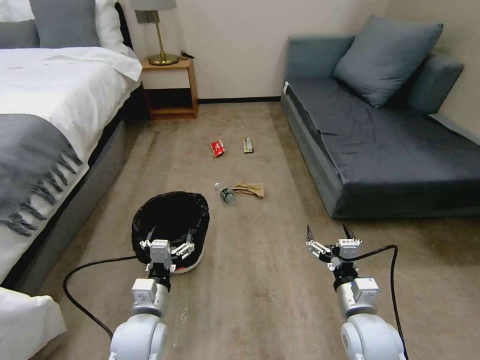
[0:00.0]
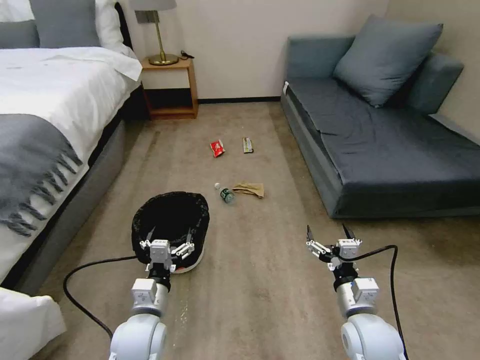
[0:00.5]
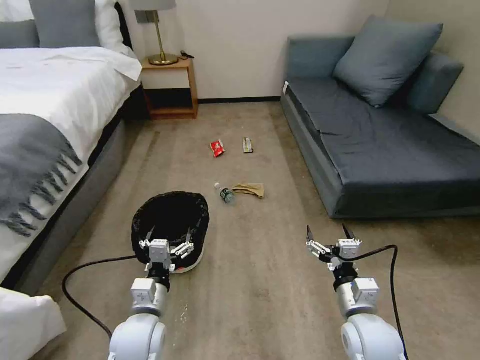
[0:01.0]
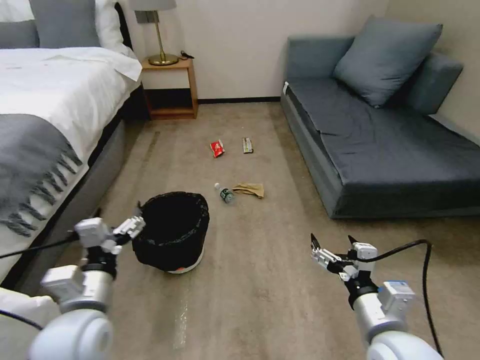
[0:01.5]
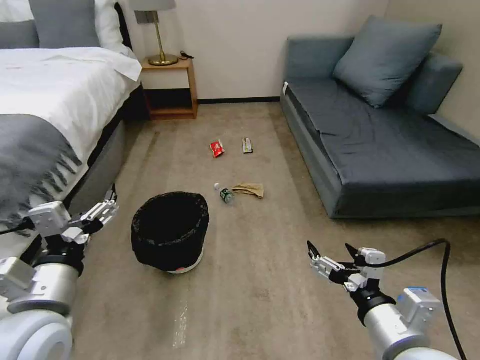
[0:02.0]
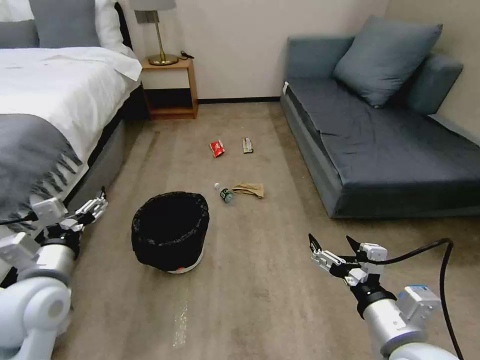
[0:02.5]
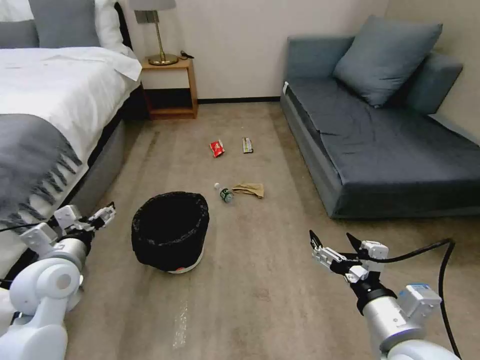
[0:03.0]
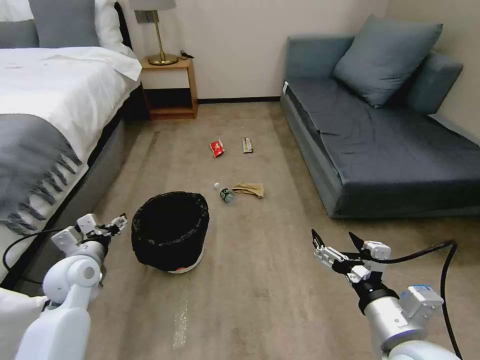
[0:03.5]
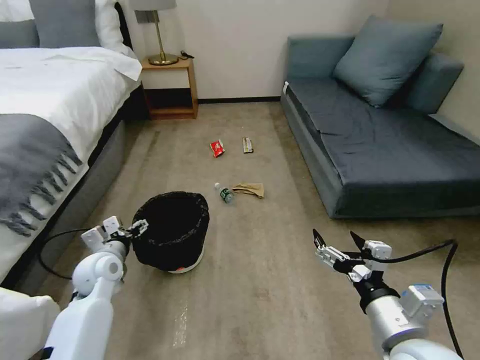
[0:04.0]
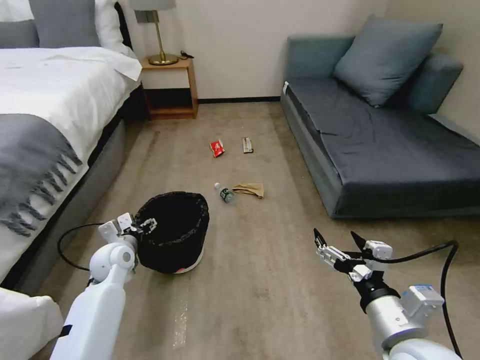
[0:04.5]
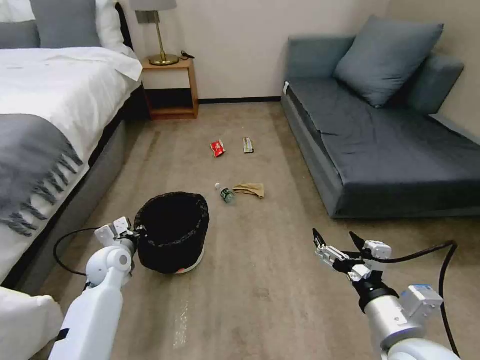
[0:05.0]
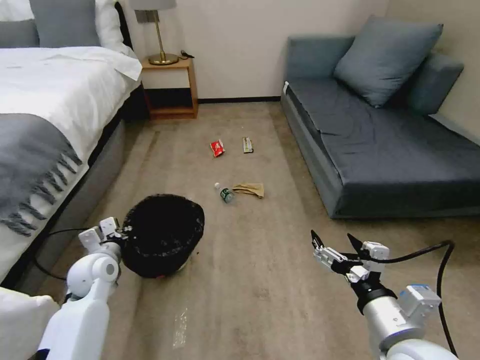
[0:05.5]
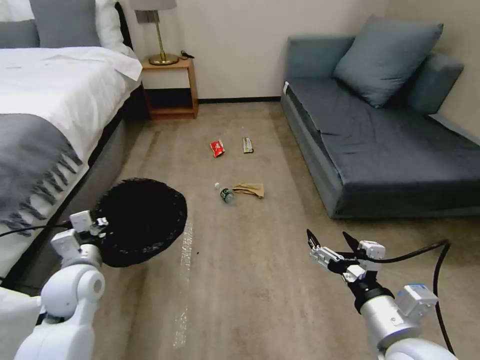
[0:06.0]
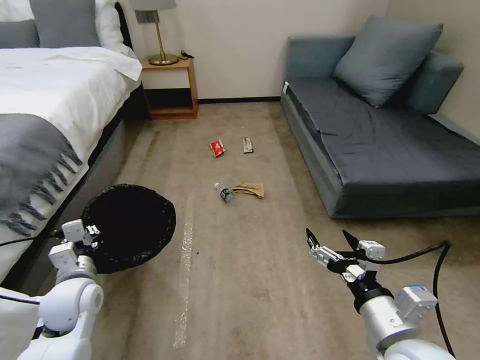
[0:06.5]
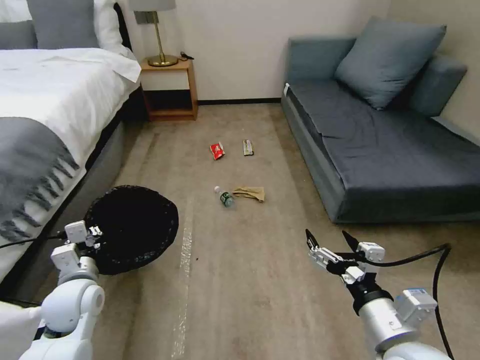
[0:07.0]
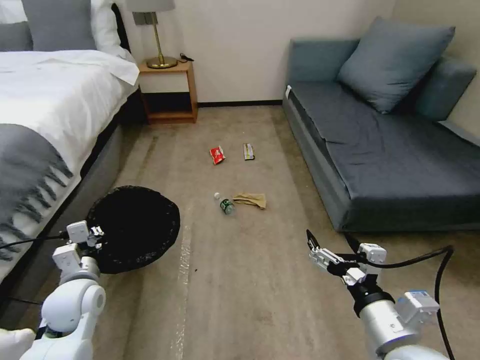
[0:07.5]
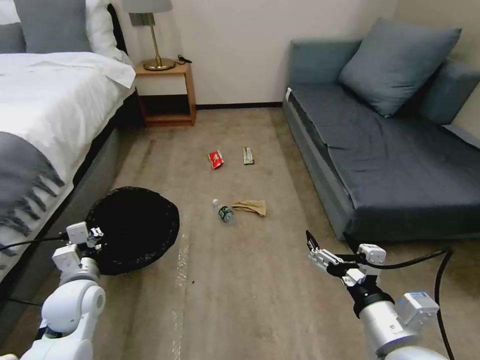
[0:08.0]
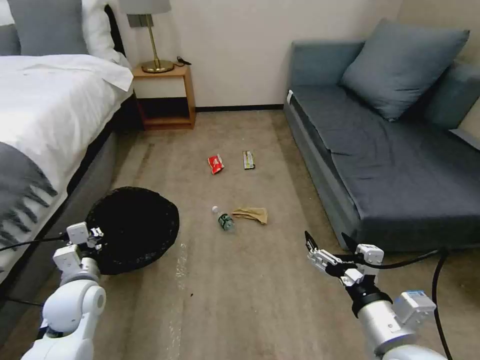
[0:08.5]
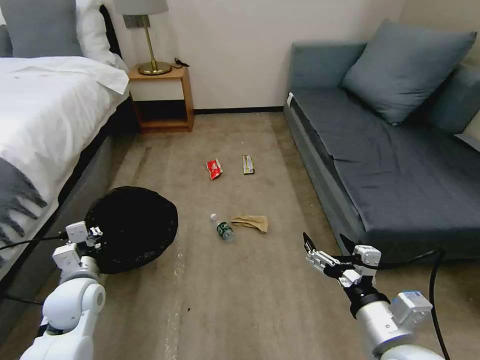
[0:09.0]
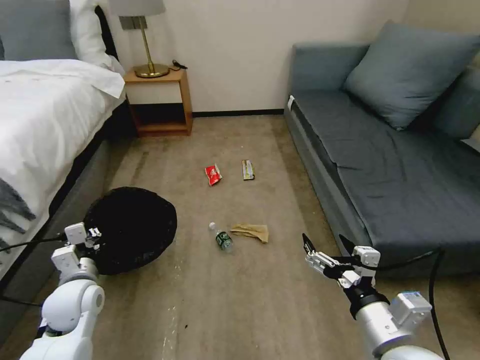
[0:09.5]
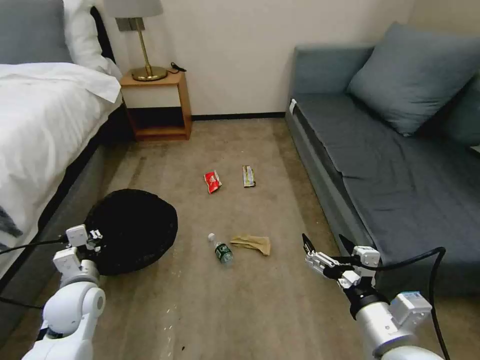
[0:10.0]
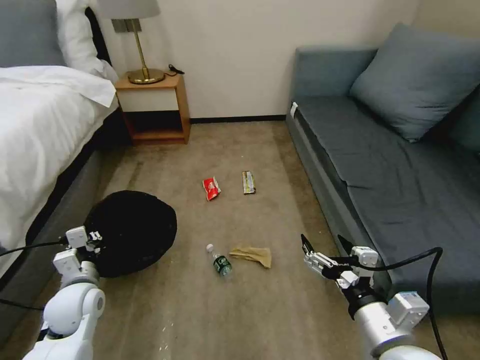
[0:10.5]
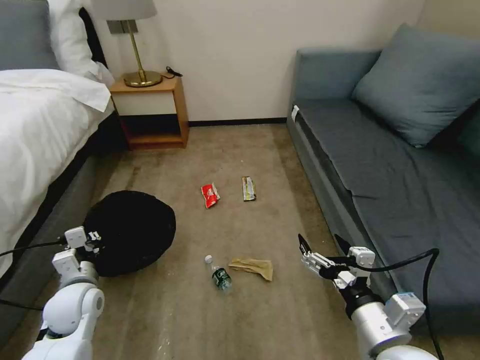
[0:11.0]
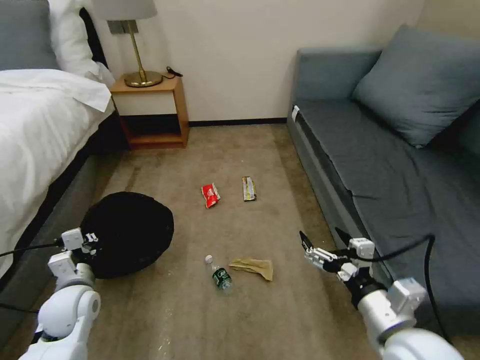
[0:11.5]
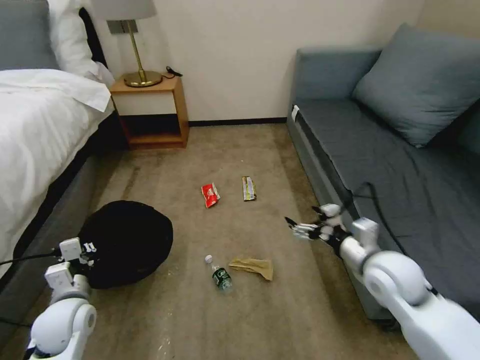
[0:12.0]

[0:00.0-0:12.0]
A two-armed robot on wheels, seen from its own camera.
Task of the whole recording: Pick up the trash bin, then pick up the garbage on the floor and place it into the trash bin.
0:02.0 to 0:04.0: The left gripper moves forward and downward, approximately 25 cm.
0:04.0 to 0:06.0: The left gripper heads backward and upward, covering about 10 cm, and closes its fingers.
0:10.0 to 0:12.0: The right gripper is displaced forward by about 15 cm.

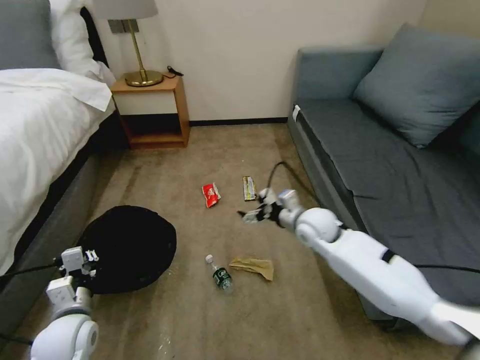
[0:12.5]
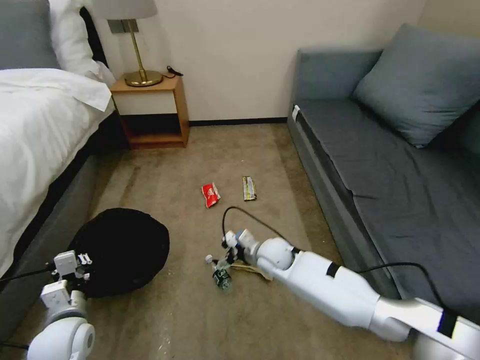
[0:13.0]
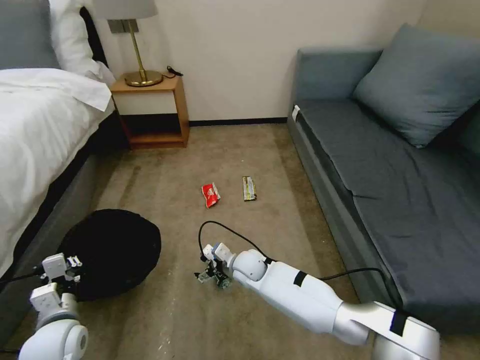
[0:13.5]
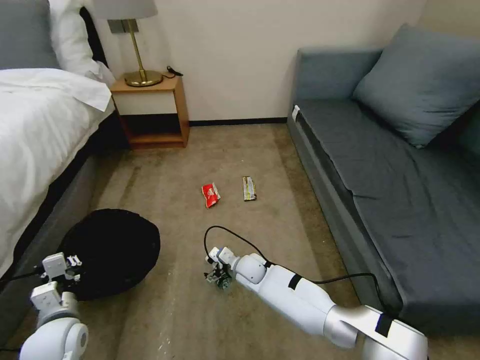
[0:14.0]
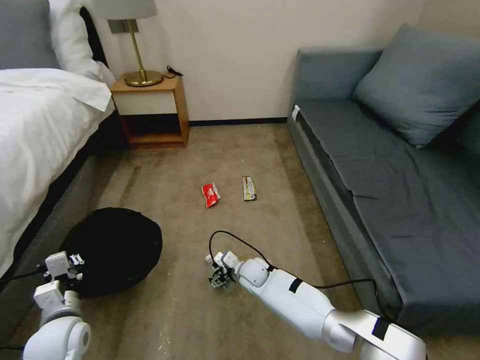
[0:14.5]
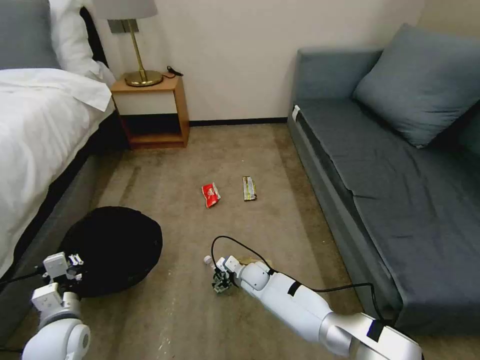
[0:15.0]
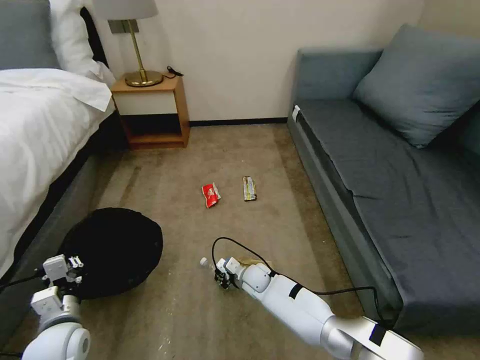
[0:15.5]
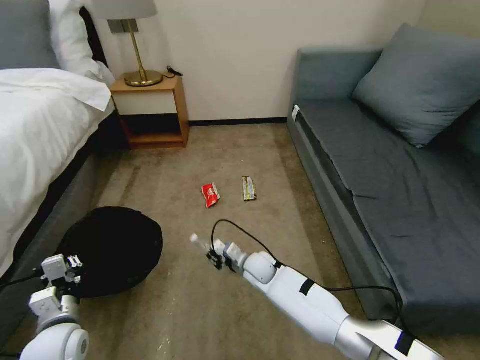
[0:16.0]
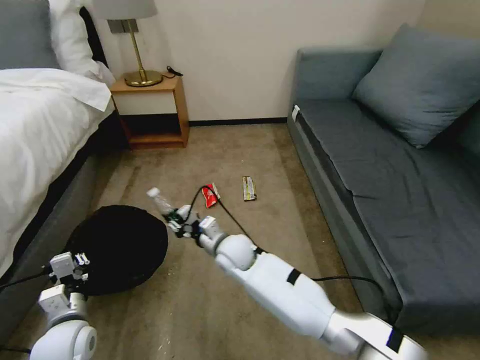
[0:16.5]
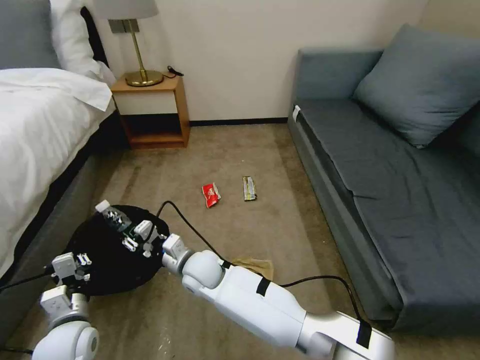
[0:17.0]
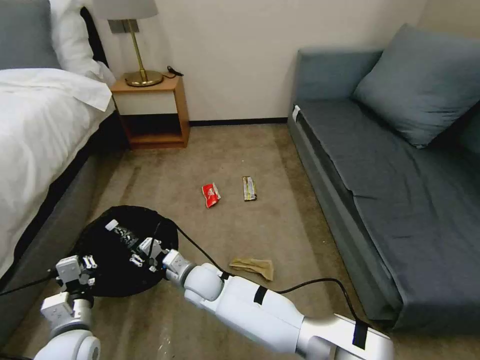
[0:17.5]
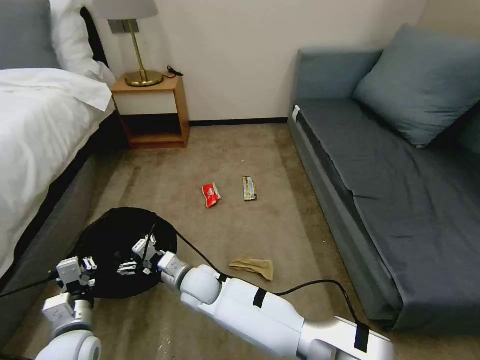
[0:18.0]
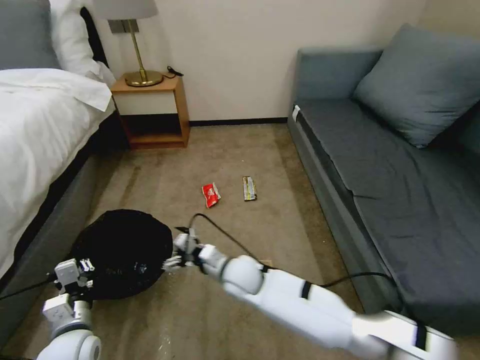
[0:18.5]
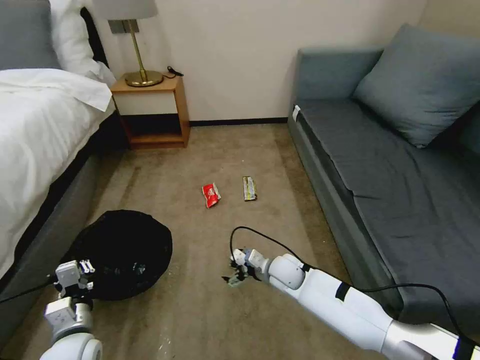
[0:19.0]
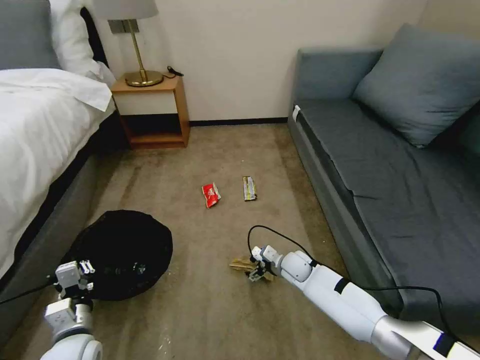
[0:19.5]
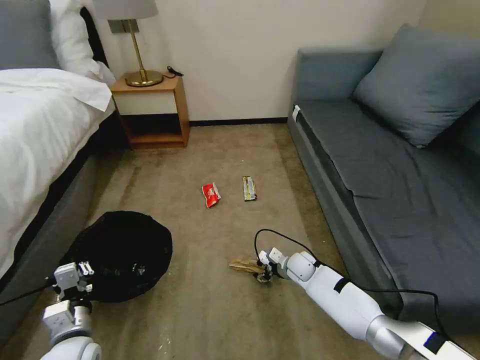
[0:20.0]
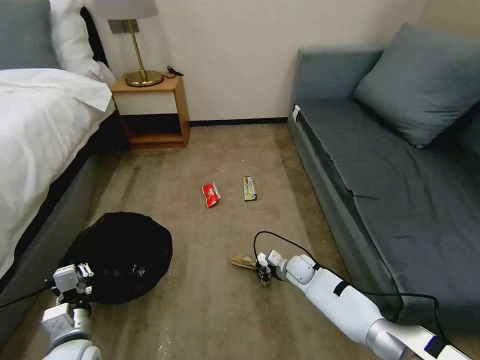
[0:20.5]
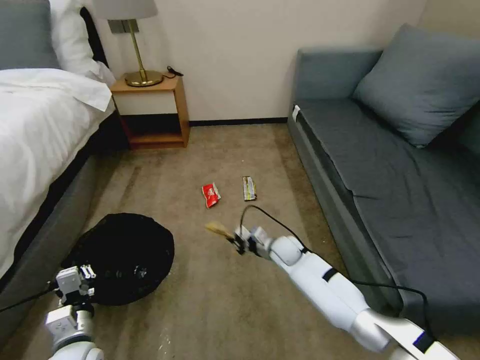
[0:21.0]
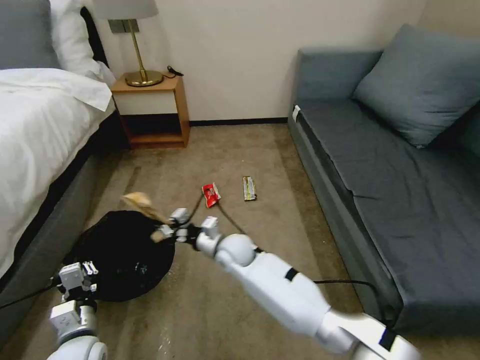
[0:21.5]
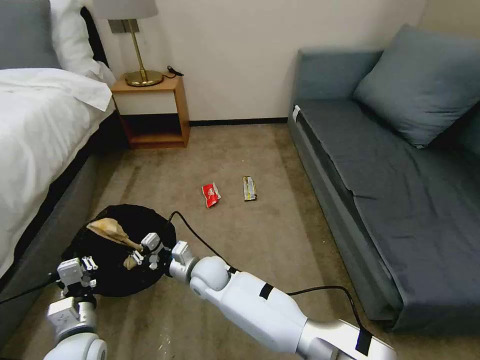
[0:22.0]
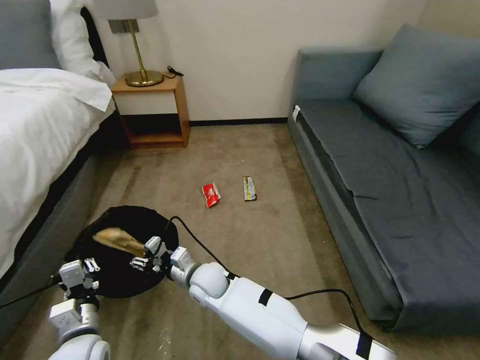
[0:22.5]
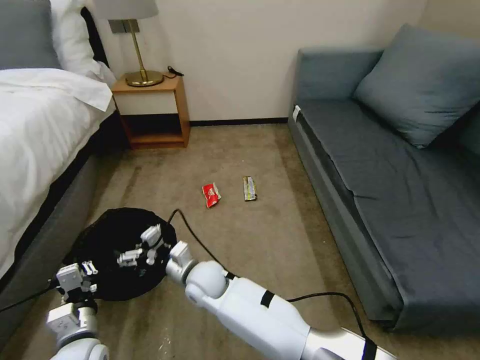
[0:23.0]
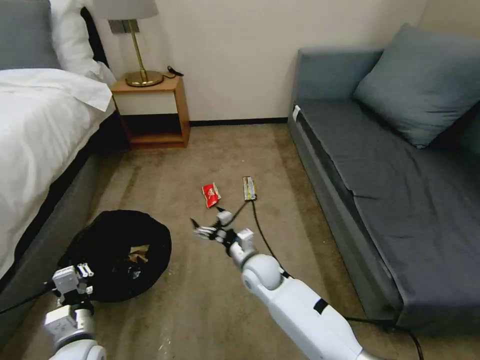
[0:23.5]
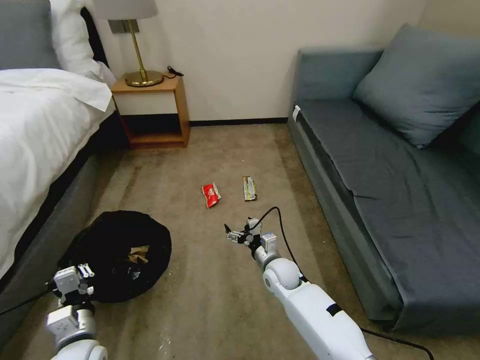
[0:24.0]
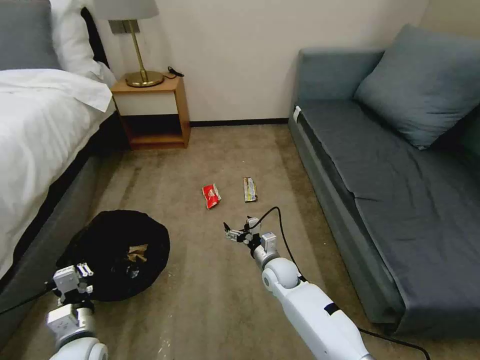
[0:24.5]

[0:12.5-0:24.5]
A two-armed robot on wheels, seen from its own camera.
Task of the whole recording: Pick up the trash bin, then pick up the garbage on the floor and place it into the trash bin.
0:12.5 to 0:14.5: The right gripper goes some 25 cm downward and to the left.
0:14.5 to 0:16.5: The right gripper goes approximately 15 cm upward, and closes its fingers.
0:16.5 to 0:18.5: The right gripper goes roughly 5 cm backward, travels to the left and back again, roughly 10 cm each way, and opens its fingers.
0:18.5 to 0:20.5: The right gripper is displaced to the right and downward by some 25 cm, and closes its fingers.
0:20.5 to 0:22.5: The right gripper shifts some 30 cm to the left, and opens.
0:22.5 to 0:24.5: The right gripper goes some 20 cm to the right, and opens its fingers.

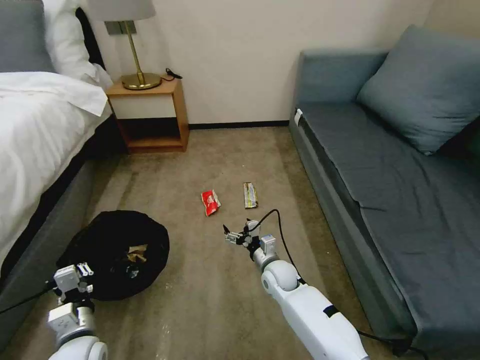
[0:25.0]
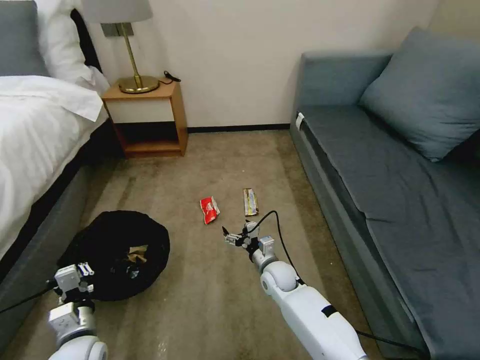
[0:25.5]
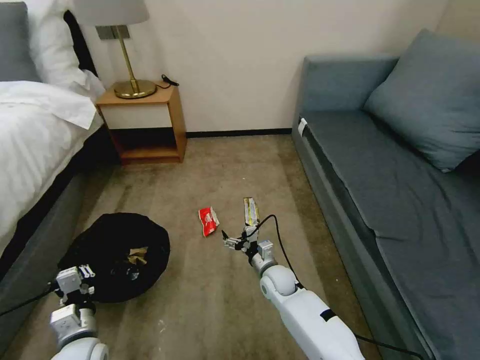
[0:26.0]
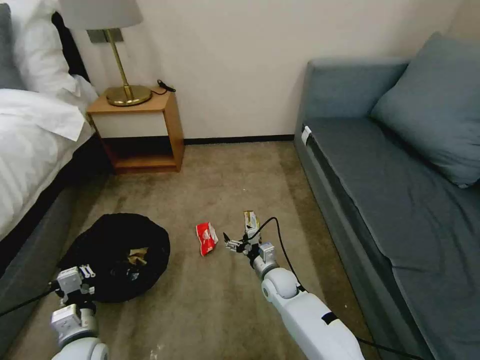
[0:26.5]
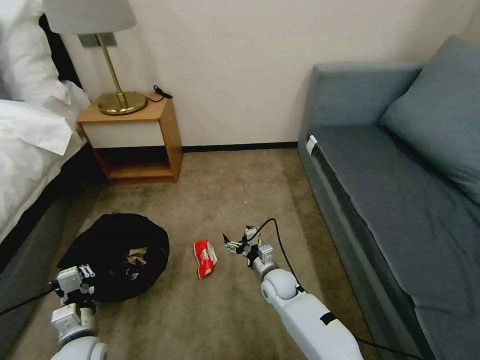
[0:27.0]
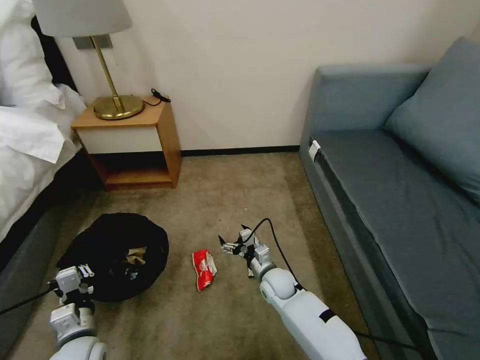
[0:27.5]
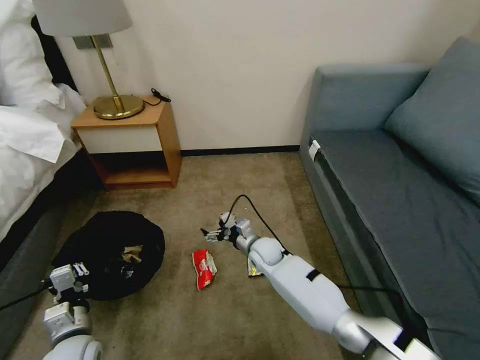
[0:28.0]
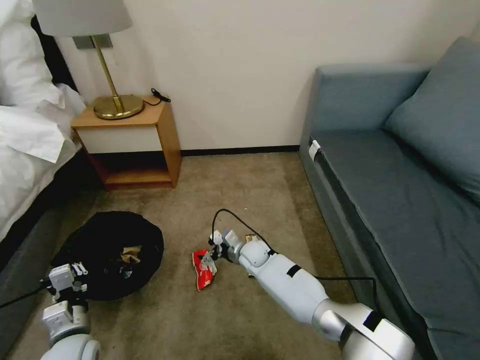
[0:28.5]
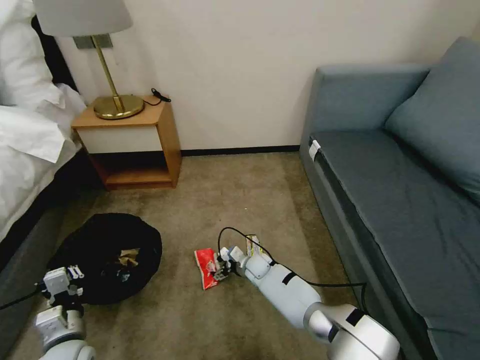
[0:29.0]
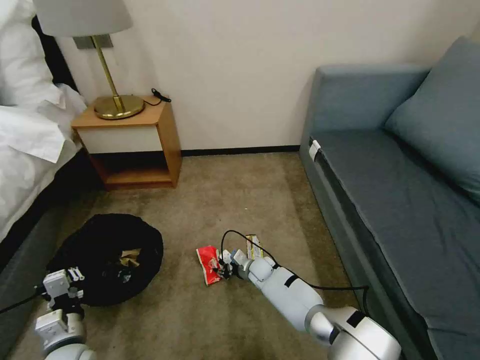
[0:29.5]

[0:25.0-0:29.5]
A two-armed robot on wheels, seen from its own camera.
Task of the whole recording: Pick up the trash bin, then pick up the garbage on the floor and place it into the trash bin.
0:27.0 to 0:29.5: The right gripper travels forward and downward by approximately 10 cm, and closes its fingers.
